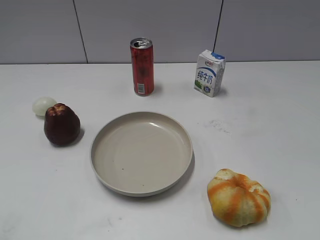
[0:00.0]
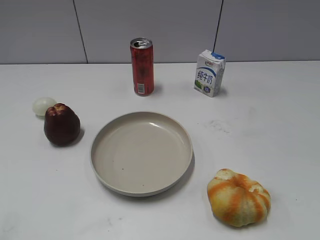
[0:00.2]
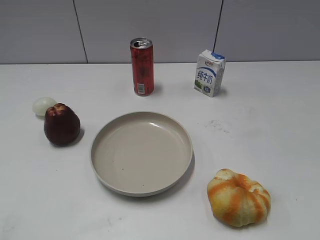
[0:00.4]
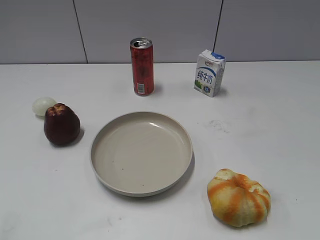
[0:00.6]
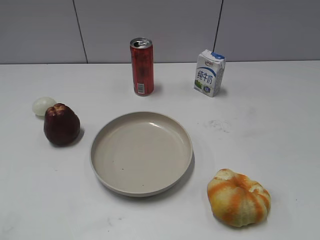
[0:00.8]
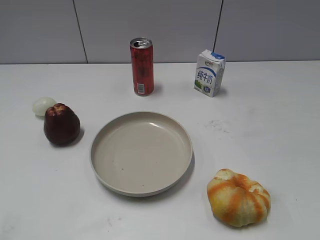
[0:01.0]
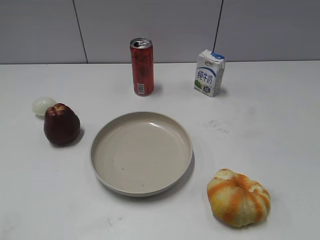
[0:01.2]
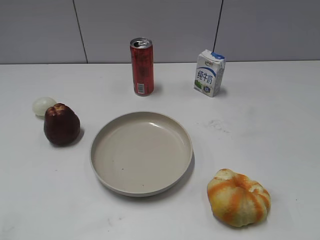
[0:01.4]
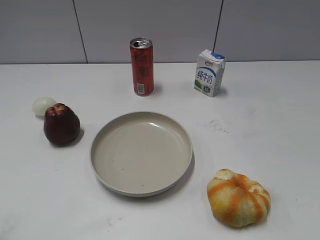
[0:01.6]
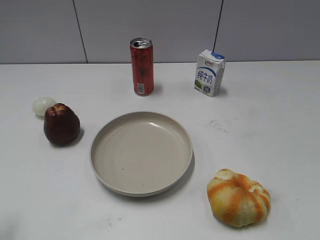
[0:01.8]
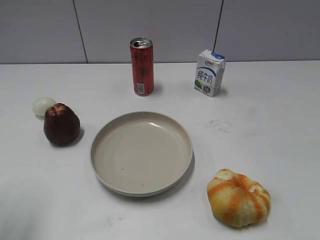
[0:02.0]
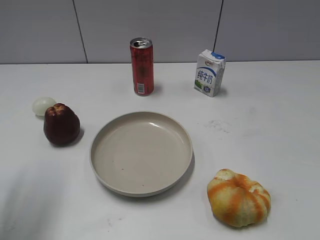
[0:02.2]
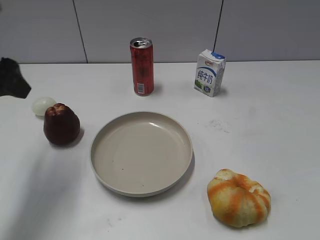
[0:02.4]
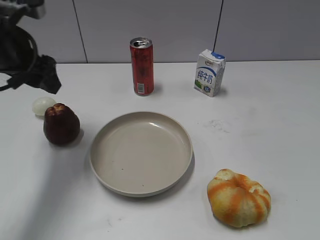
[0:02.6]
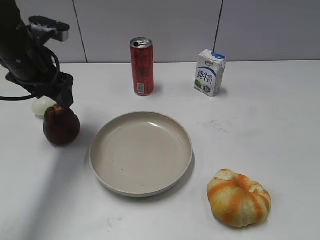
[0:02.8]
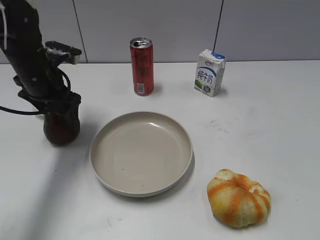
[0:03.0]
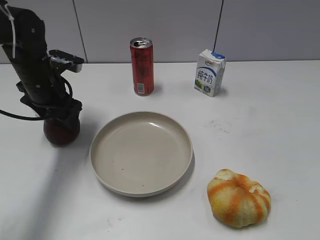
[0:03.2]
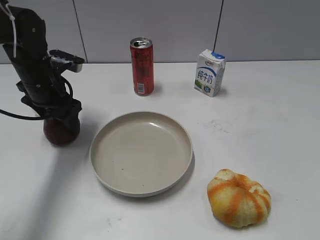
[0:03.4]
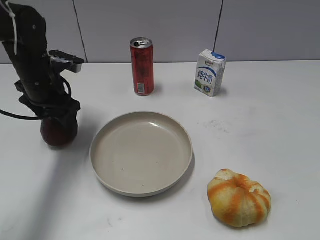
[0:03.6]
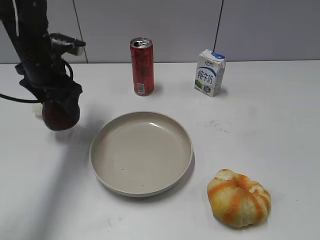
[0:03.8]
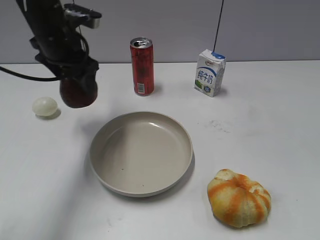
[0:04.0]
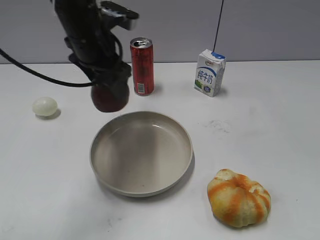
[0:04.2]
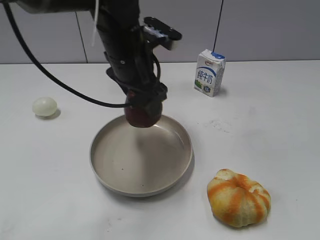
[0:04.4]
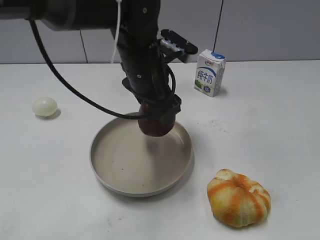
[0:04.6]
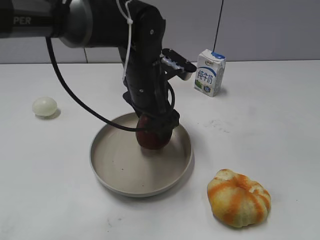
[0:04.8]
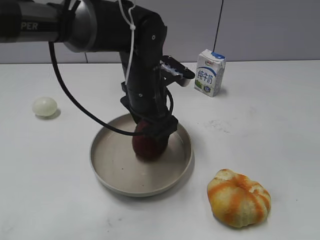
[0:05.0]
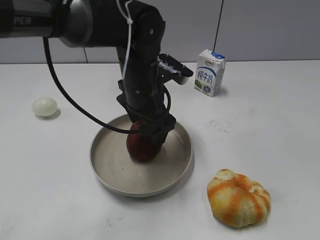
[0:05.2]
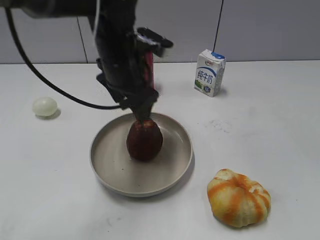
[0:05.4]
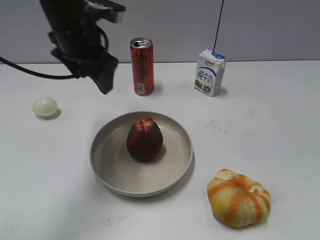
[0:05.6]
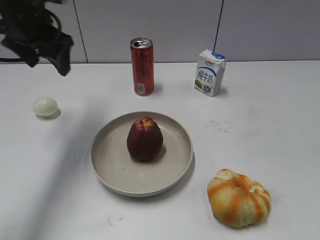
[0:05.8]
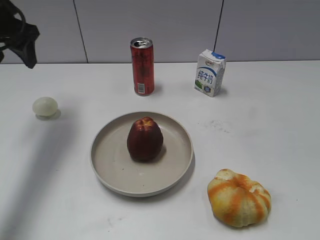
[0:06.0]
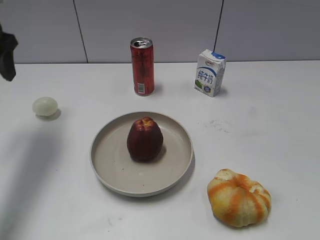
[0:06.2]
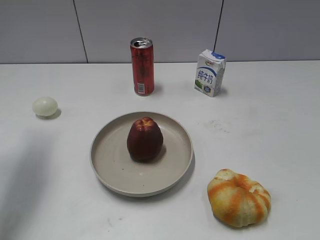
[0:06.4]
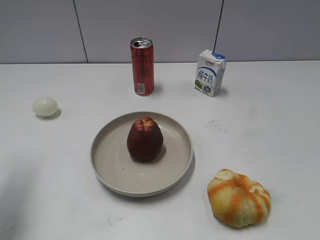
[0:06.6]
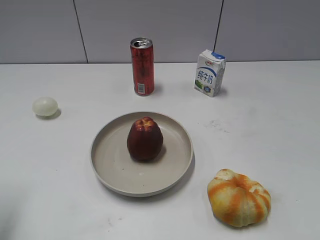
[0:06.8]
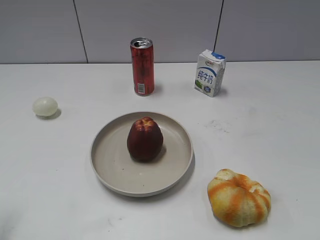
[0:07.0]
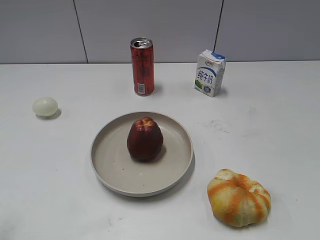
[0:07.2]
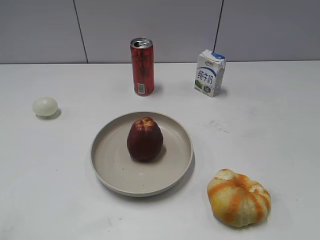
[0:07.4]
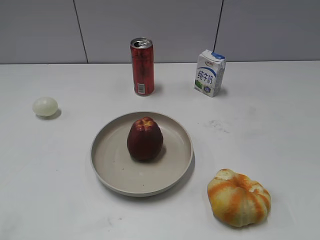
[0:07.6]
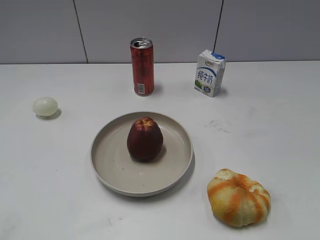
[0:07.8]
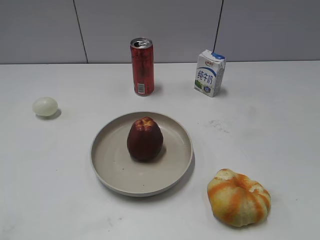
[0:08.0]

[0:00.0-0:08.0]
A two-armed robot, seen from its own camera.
Step, 0:01.2 to 0:03.6: Grasp the apple with left gripper.
Step, 0:03.8 to 0:05.4: Place the apple on the plate with left gripper.
0:01.6 to 0:03.2: The left gripper is displaced forward and downward by some 35 cm, and opens up.
0:03.2 to 0:04.8: The left gripper shifts roughly 20 cm to the right, and closes.
0:04.8 to 0:06.4: The left gripper goes roughly 30 cm to the left, and opens, then closes once more.
0:06.4 to 0:08.0: The left gripper moves backward, approximately 30 cm.
